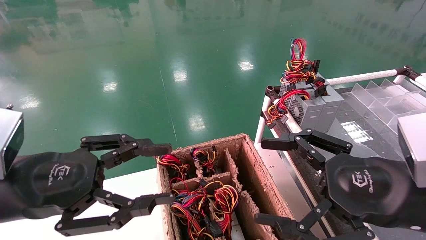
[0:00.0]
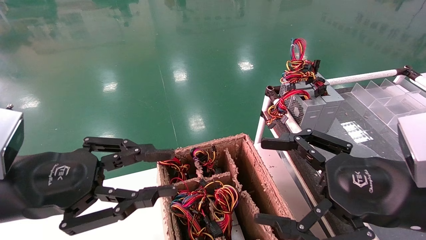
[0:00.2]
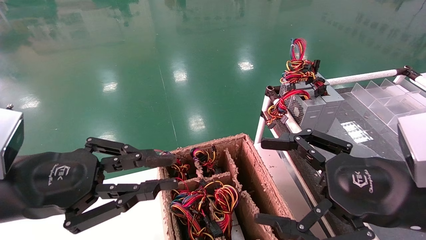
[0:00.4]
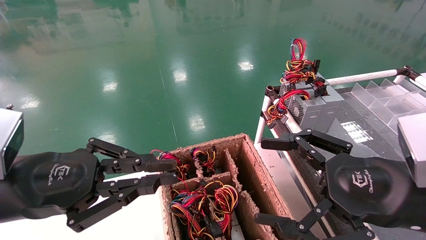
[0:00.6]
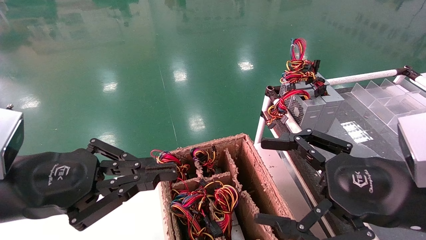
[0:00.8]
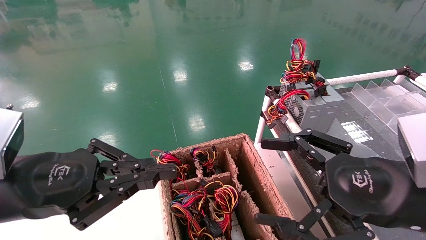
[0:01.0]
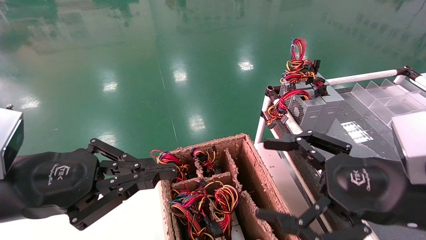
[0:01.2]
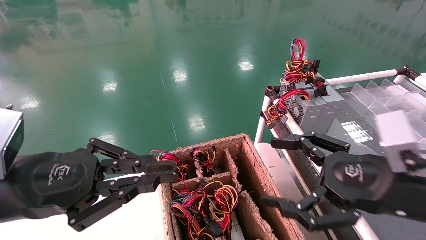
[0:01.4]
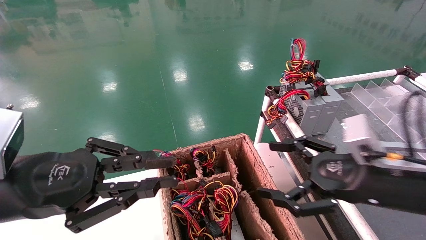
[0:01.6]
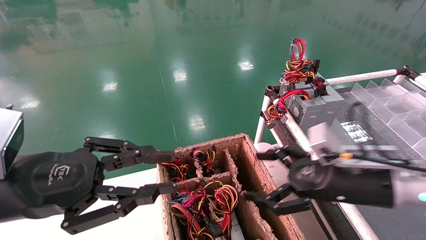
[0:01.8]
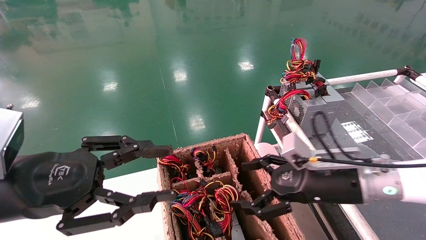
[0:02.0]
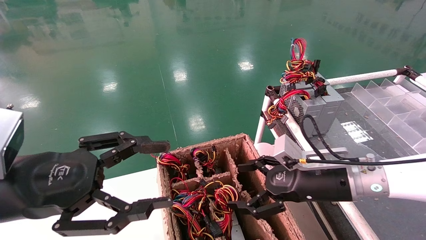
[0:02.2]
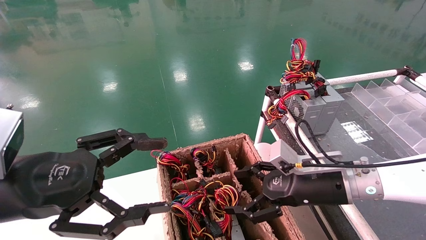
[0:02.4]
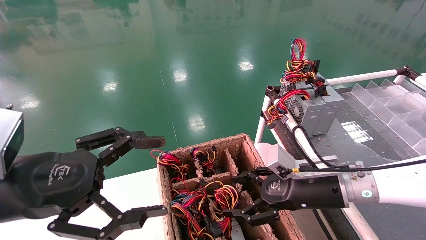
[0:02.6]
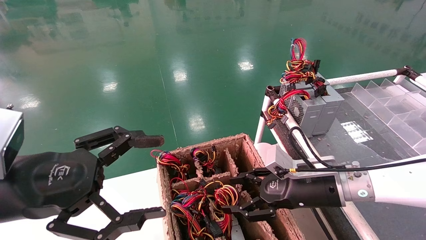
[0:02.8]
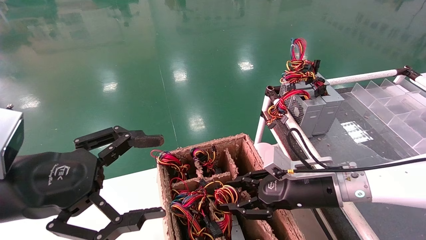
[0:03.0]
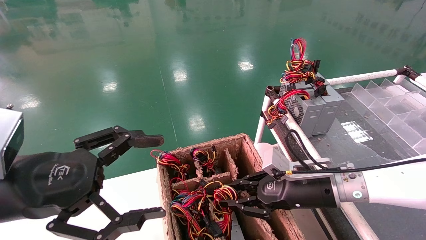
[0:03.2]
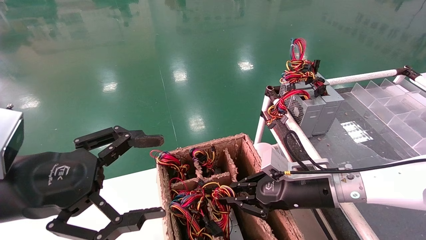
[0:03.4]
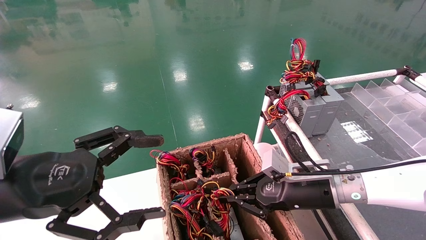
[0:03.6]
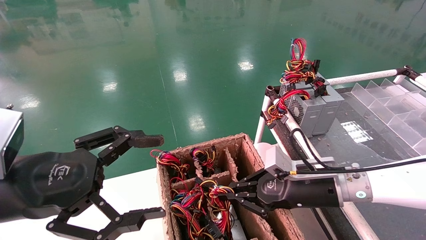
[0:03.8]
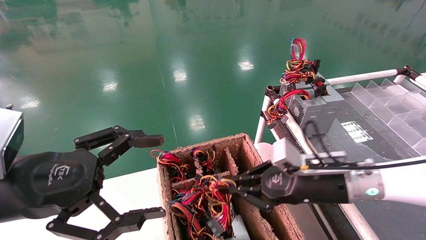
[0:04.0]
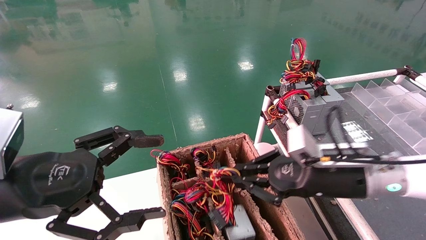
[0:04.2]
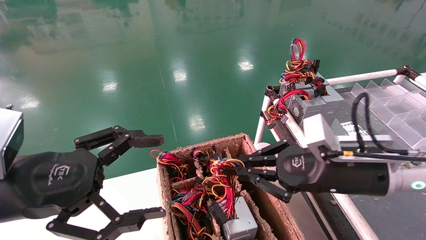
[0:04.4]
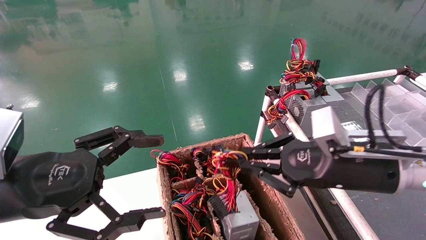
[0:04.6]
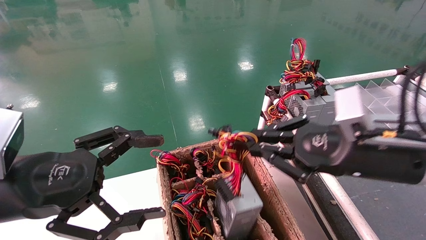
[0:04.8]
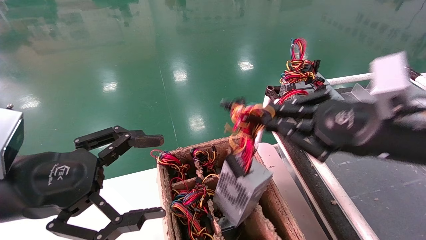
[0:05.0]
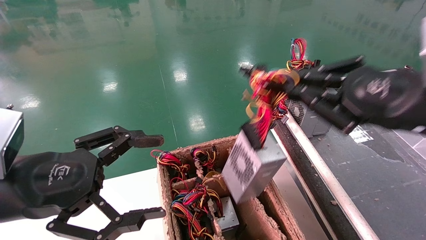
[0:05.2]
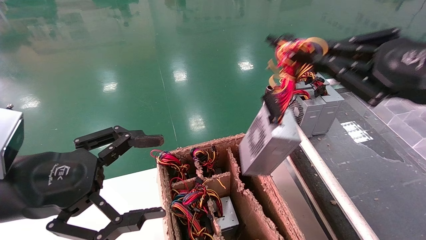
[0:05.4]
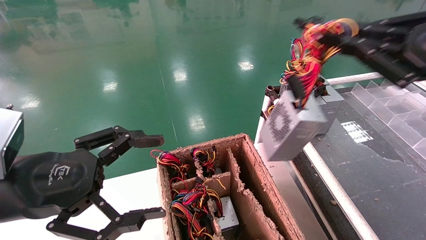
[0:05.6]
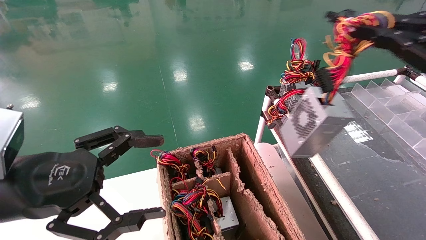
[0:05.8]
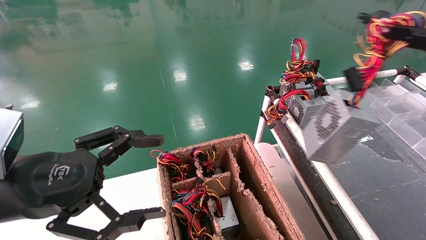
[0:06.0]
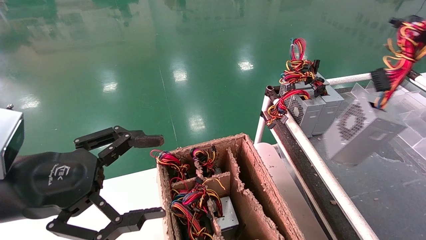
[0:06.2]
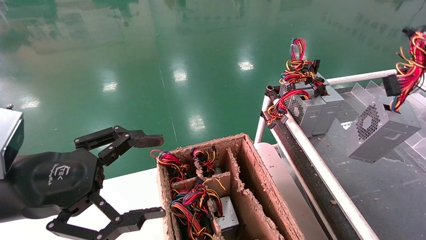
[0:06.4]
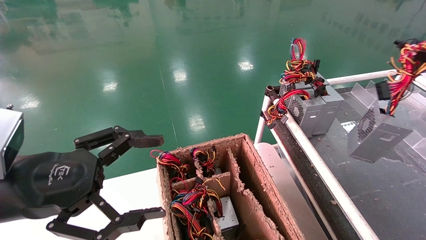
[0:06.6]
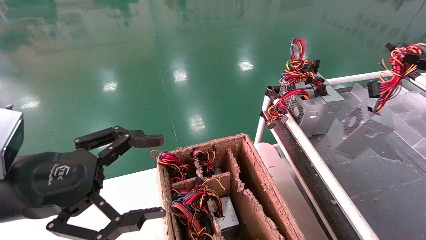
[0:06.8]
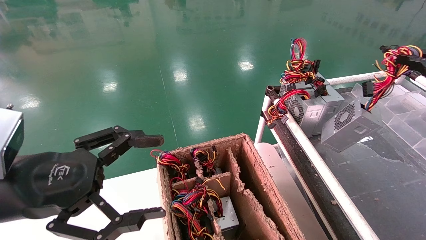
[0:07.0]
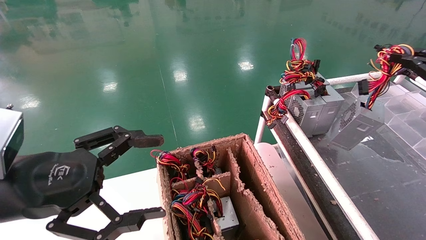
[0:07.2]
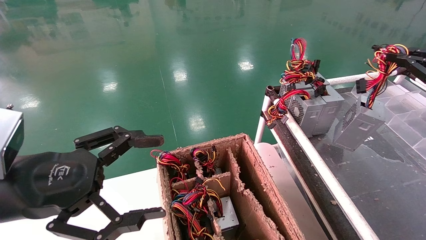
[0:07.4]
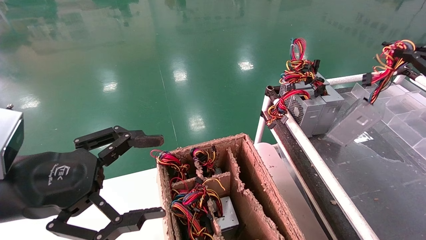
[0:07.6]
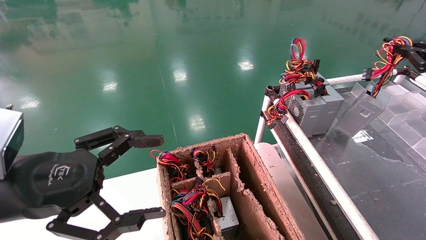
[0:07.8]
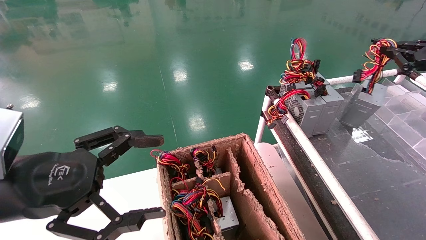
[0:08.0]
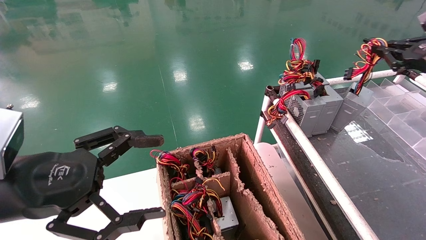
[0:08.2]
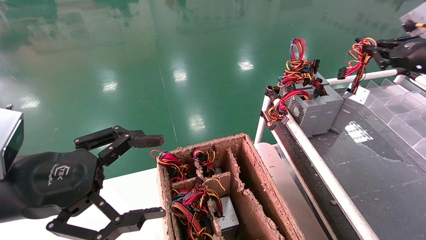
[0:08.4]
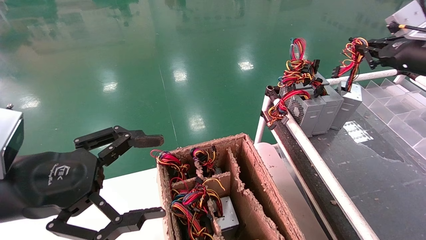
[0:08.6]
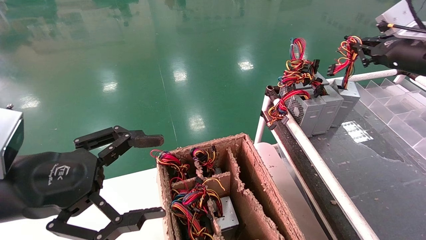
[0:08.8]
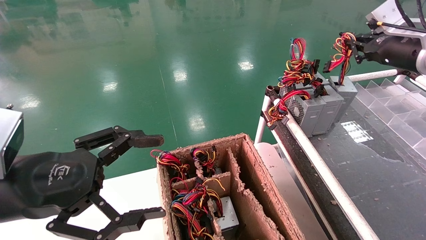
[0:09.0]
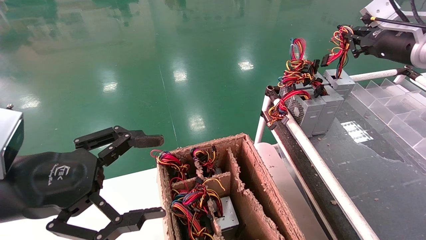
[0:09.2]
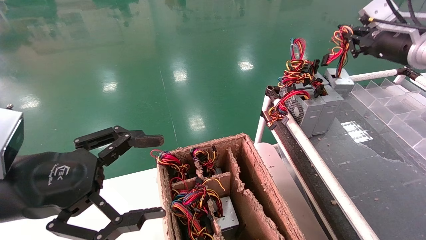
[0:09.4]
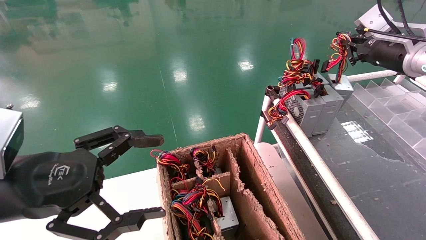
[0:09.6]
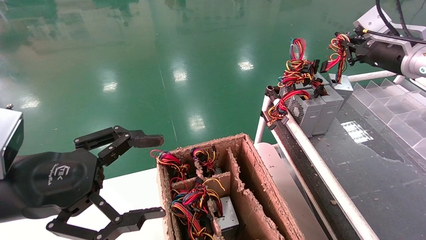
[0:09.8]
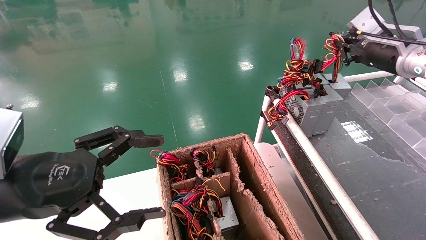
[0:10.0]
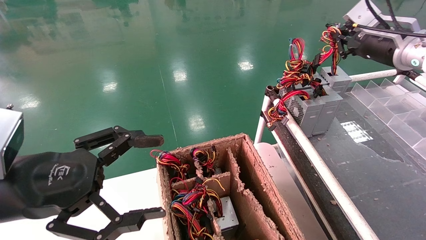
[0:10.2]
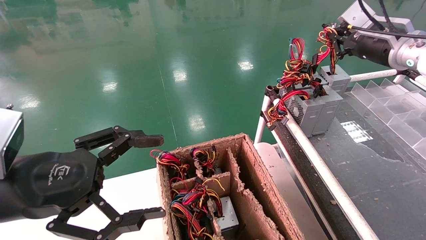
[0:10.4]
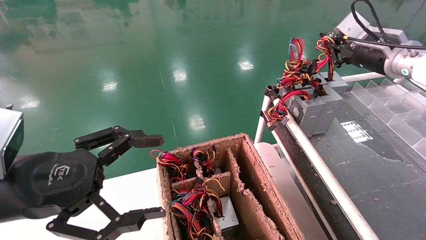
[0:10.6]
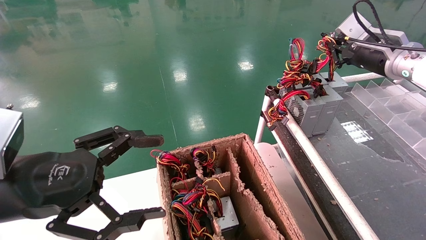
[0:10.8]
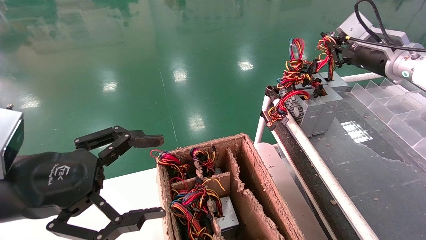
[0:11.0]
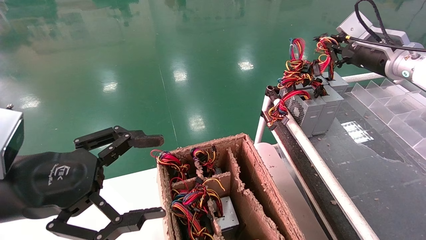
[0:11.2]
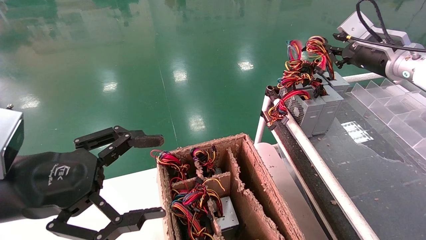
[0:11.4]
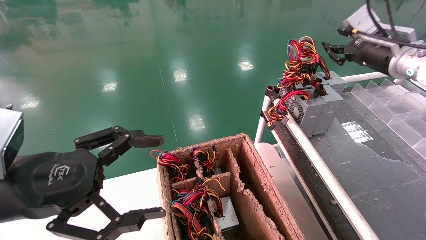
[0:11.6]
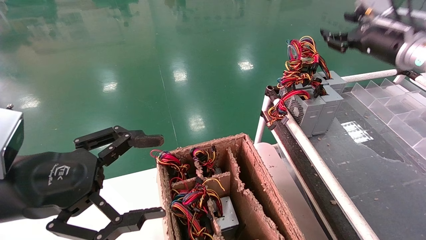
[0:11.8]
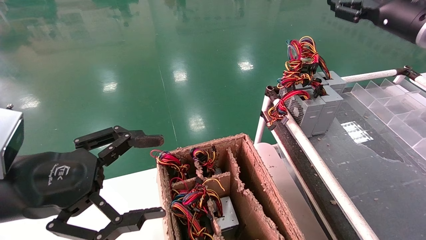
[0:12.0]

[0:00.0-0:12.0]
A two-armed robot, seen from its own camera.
Step, 0:01.0 to 0:03.8: Grab and lift the power supply from the large box.
Step, 0:04.0 to 0:11.0: Place the power supply on the operating table.
0:00.0 to 0:01.6: The right gripper goes some 5 cm forward; the left gripper closes.
0:01.6 to 0:03.0: The right gripper goes about 15 cm forward, downward and to the left, and closes its fingers; the left gripper opens up.
0:03.0 to 0:04.4: The right gripper is displaced upward and backward by about 10 cm, and closes its fingers.
0:04.4 to 0:06.0: The right gripper shifts roughly 25 cm to the right, upward and backward.
0:06.0 to 0:07.6: The right gripper shifts some 15 cm forward and to the right.
0:07.6 to 0:09.0: The right gripper travels forward and to the left by roughly 15 cm.
0:09.0 to 0:10.4: The grippers move only a little.
0:10.4 to 0:12.0: The right gripper opens up.

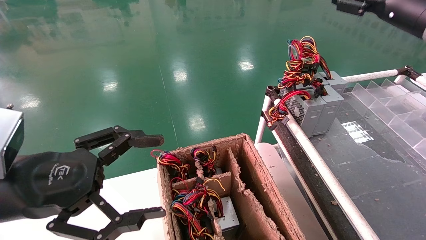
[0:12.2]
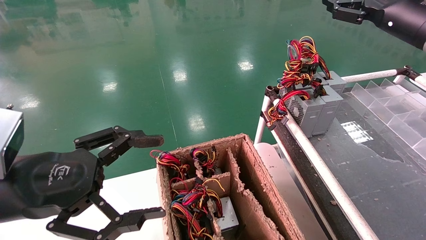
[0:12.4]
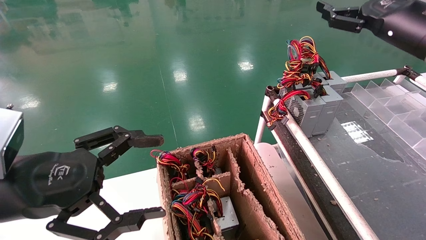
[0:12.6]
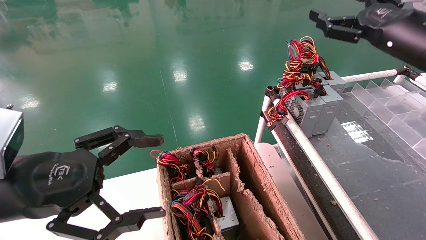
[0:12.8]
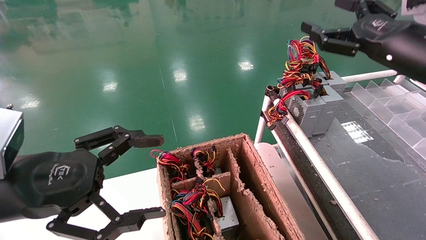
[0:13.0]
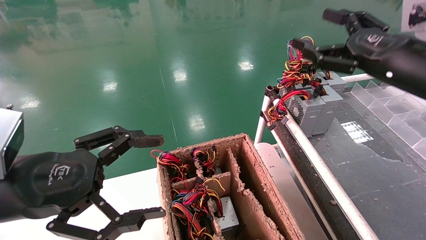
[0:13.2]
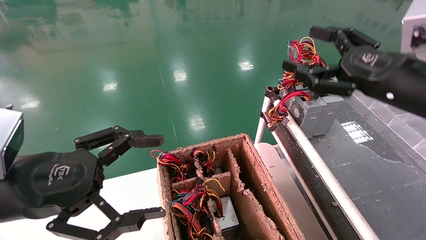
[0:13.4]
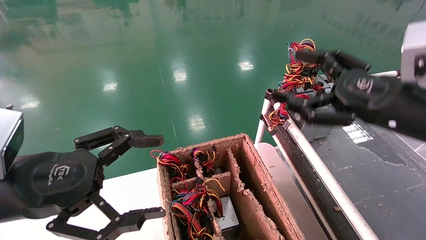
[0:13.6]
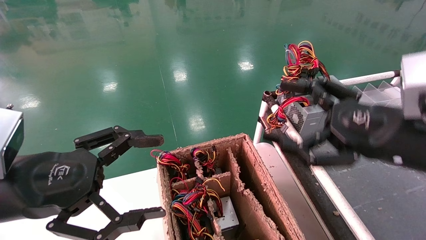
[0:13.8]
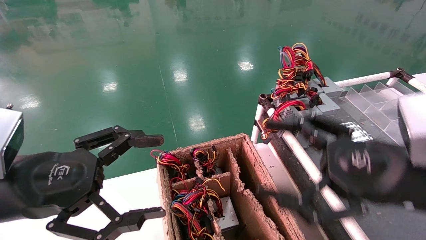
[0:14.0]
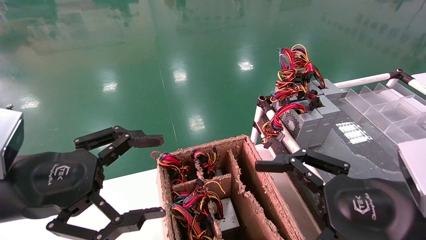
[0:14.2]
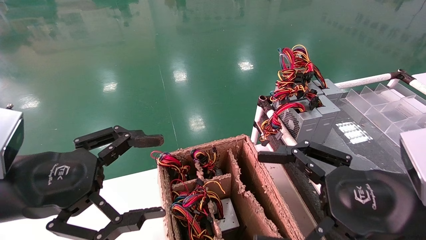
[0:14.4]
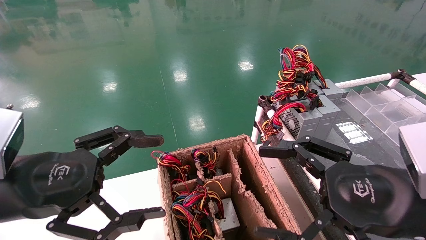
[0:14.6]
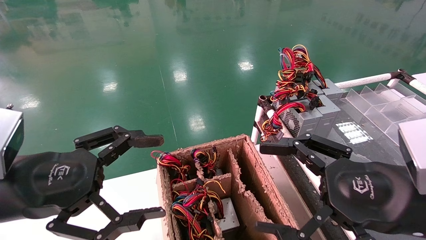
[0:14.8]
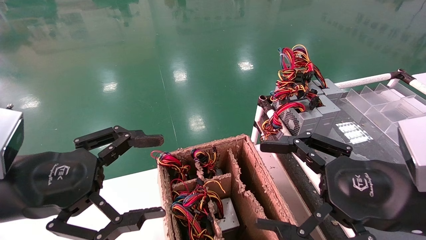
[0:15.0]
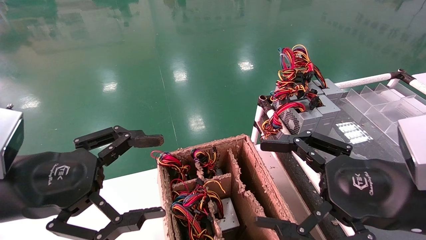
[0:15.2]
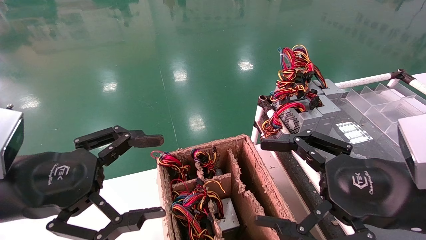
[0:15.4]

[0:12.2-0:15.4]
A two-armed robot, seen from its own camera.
0:12.2 to 0:13.8: The right gripper goes some 25 cm backward, downward and to the left.
0:13.8 to 0:15.4: The right gripper changes place by about 5 cm.
